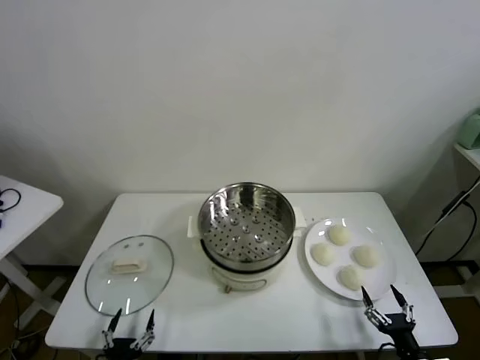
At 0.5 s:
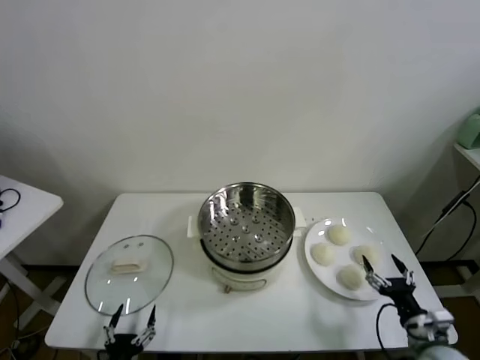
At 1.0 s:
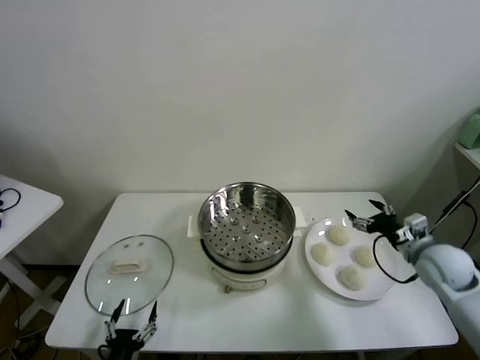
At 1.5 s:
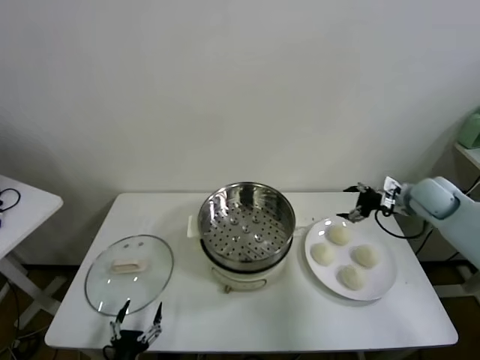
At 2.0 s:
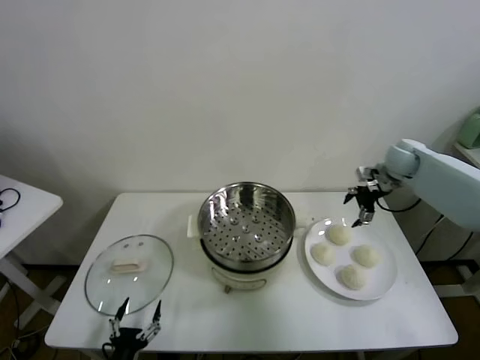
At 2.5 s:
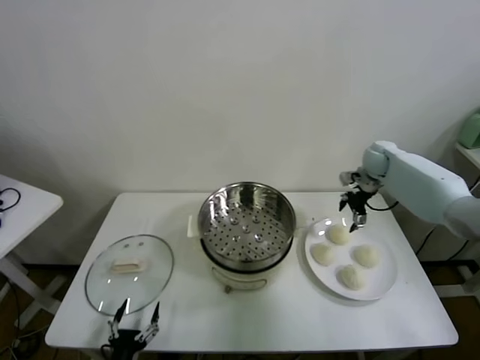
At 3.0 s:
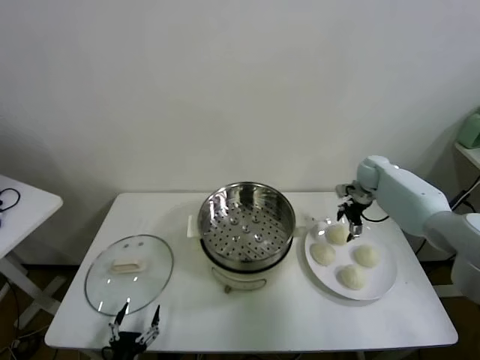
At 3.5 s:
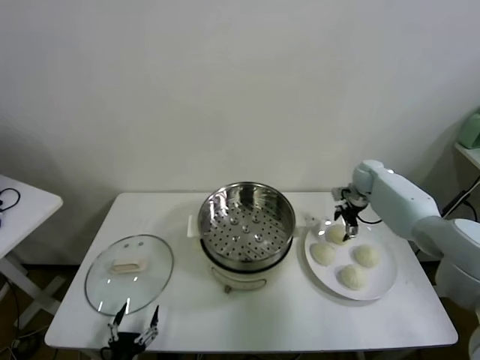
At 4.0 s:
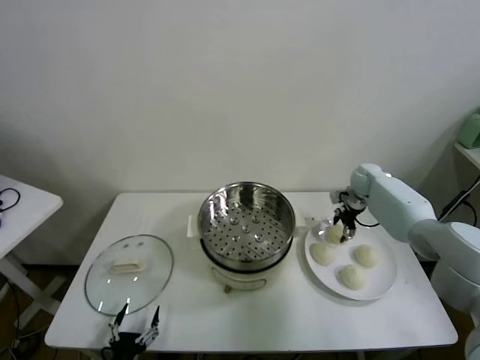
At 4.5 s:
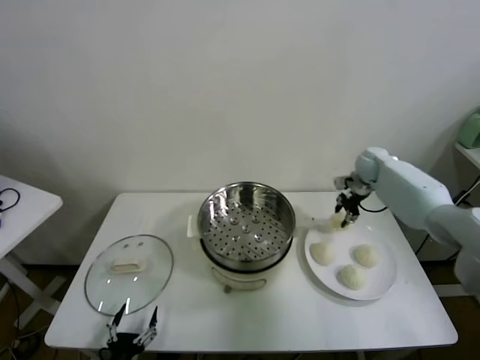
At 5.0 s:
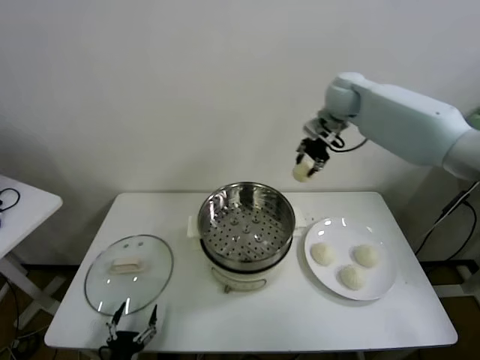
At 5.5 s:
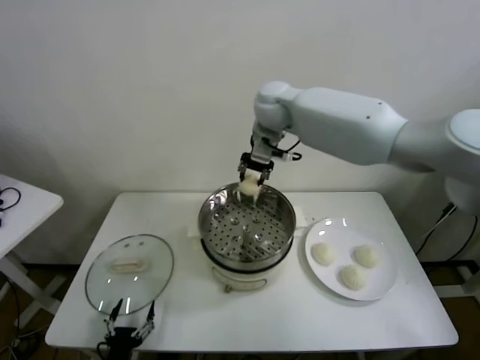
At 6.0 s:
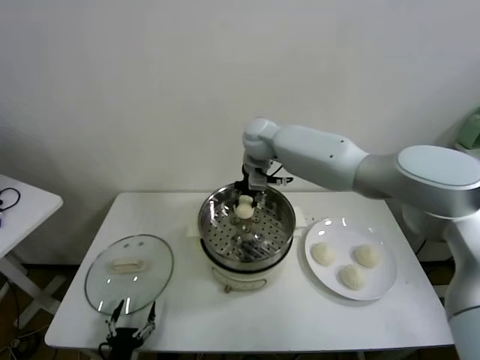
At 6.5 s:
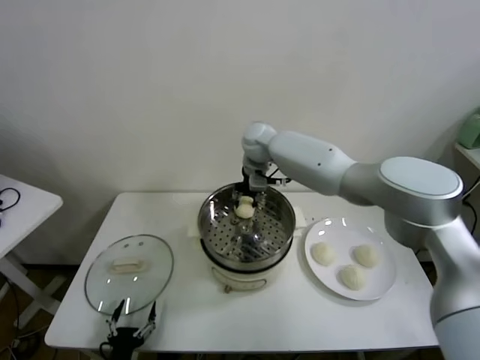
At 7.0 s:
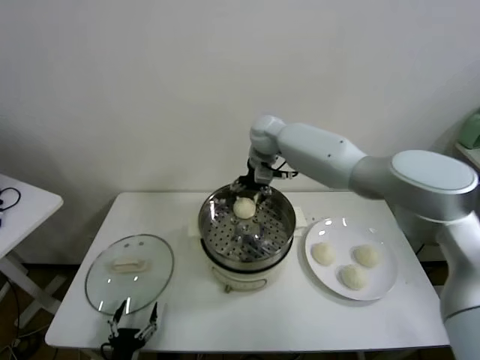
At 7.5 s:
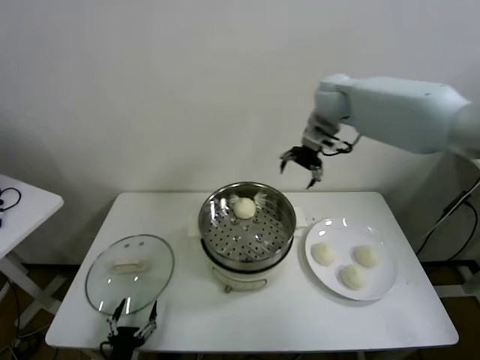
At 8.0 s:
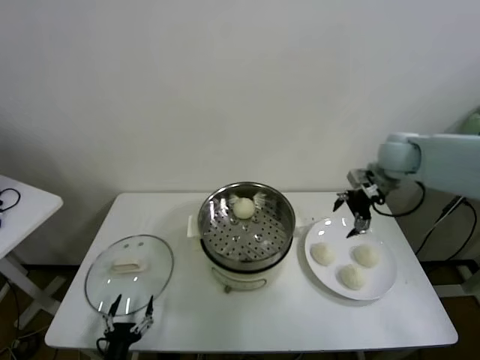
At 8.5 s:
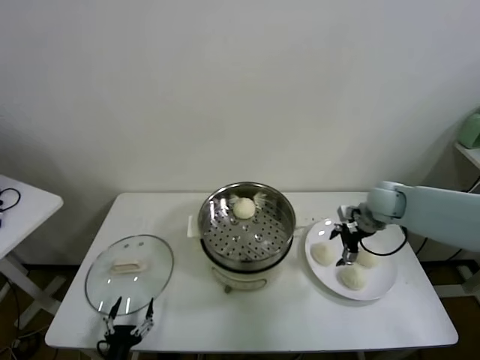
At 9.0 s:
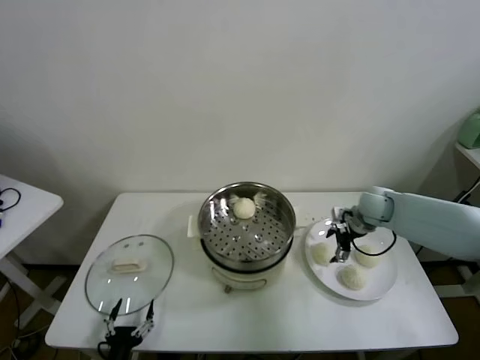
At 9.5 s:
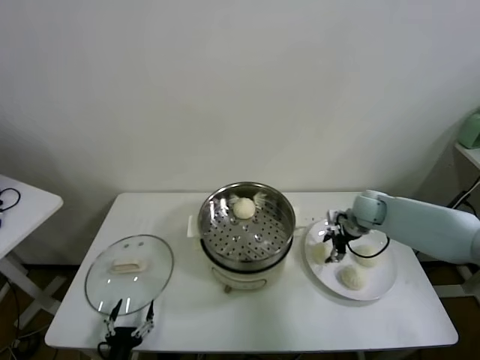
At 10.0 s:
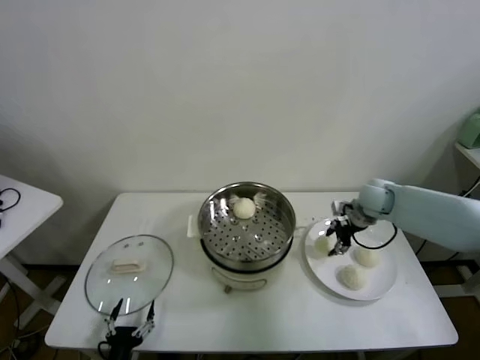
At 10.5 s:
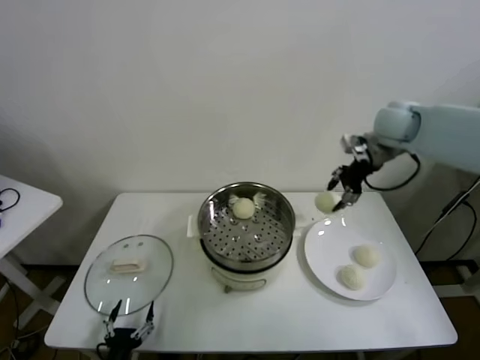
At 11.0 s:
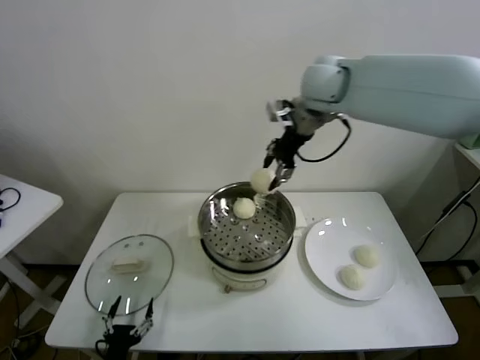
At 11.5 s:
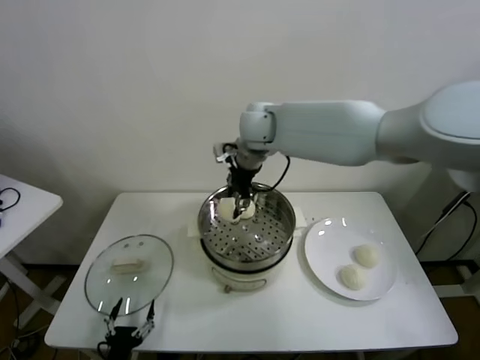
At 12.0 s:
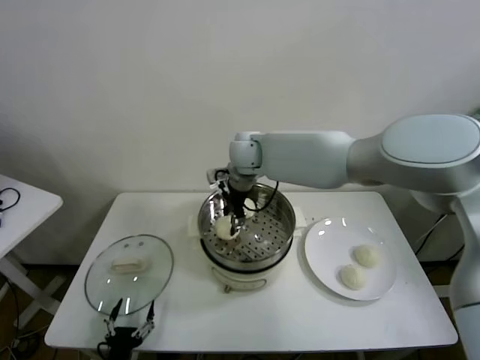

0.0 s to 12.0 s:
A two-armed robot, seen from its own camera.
Task of the whole recording: take steamed baozi put them in steamer.
Step, 0.0 to 4.0 s: Grasp the baozi in the plate with right gripper.
Step, 4.5 to 6.5 s: Place the baozi on the steamer with right gripper.
Step, 7.0 to 9.5 s: Grasp the baozi in the plate with right gripper.
2.0 to 4.0 s: The right gripper is displaced downward by about 10 cm, and closes up.
4.0 to 6.0 s: The right gripper shifts some 35 cm to the left and upward, and closes up.
6.0 to 8.0 s: The right gripper goes approximately 30 cm to the right, and opens up.
8.0 to 10.0 s: The right gripper travels downward by approximately 10 cm, and closes.
10.0 to 12.0 s: The right gripper shifts roughly 35 cm to the left.

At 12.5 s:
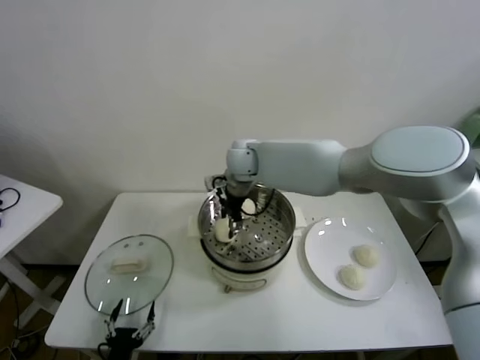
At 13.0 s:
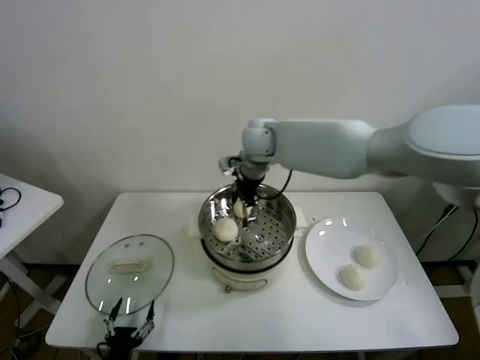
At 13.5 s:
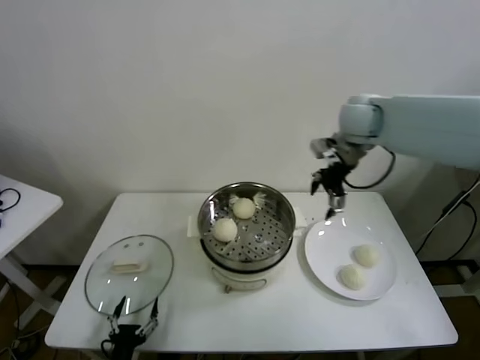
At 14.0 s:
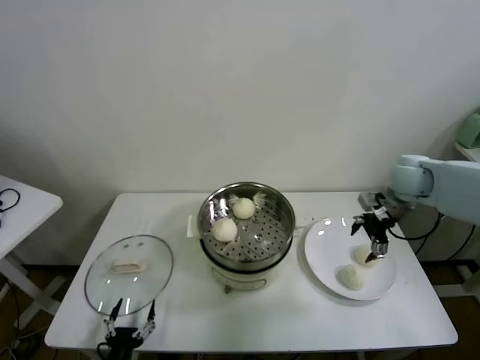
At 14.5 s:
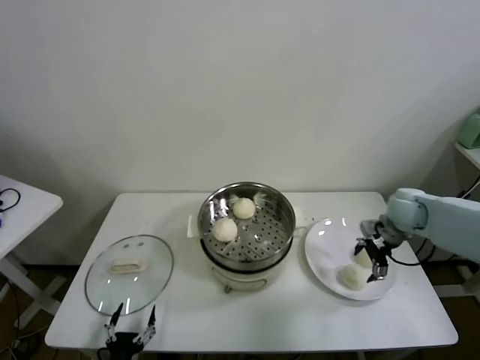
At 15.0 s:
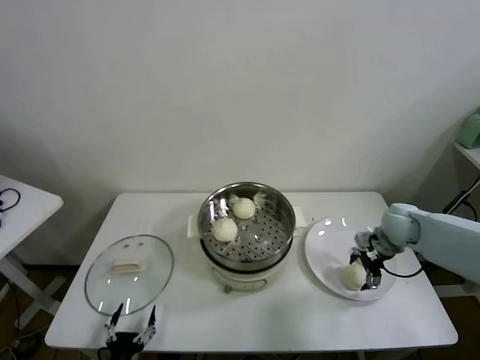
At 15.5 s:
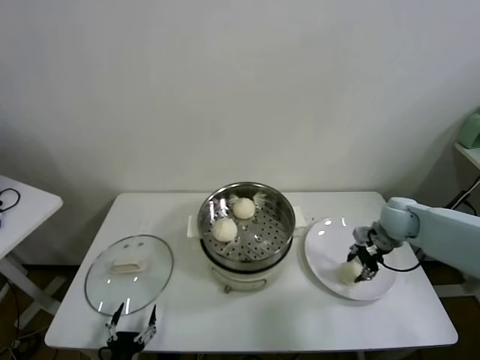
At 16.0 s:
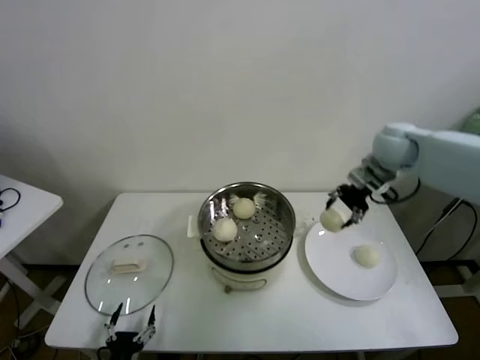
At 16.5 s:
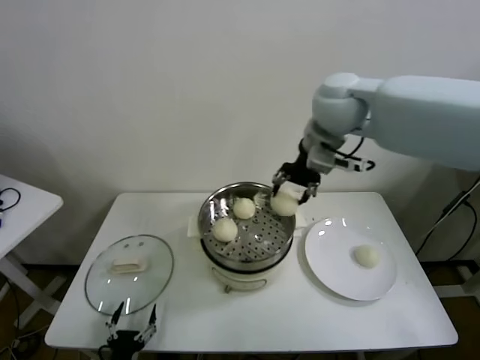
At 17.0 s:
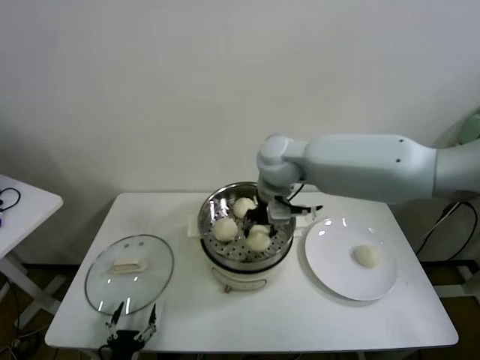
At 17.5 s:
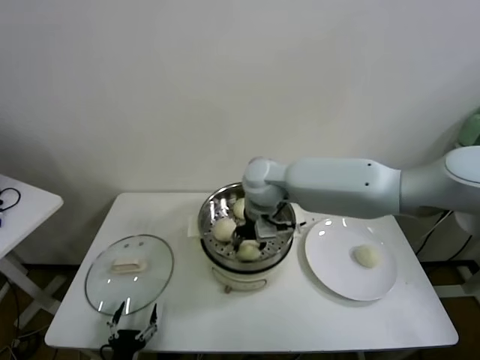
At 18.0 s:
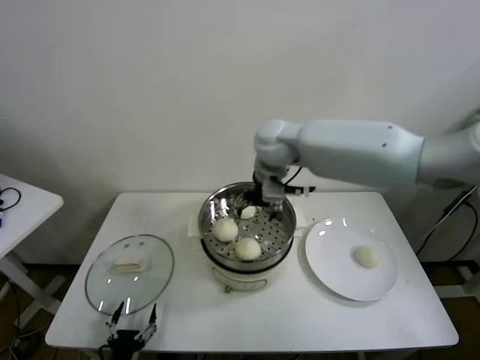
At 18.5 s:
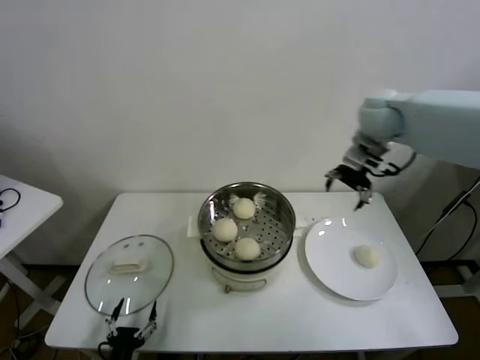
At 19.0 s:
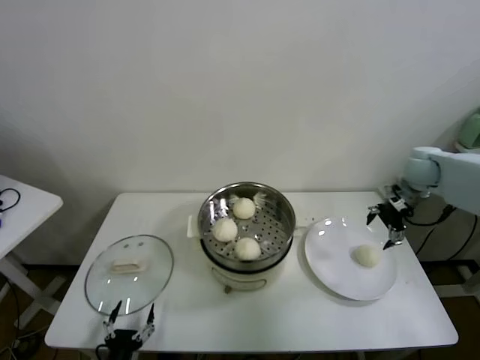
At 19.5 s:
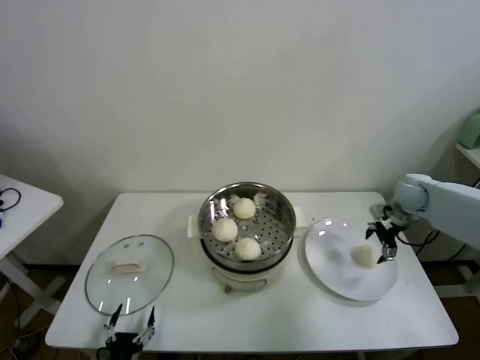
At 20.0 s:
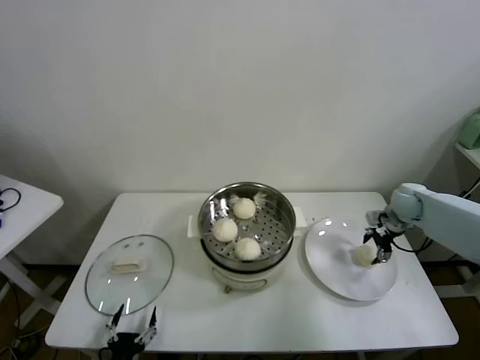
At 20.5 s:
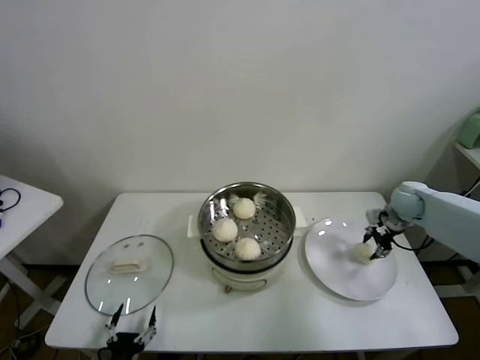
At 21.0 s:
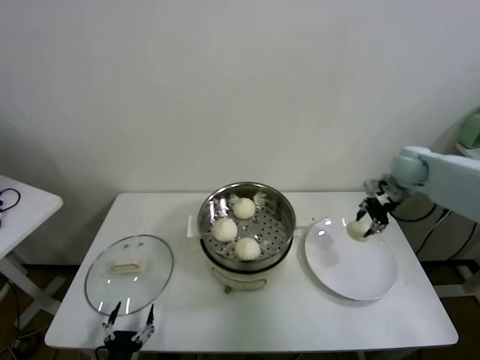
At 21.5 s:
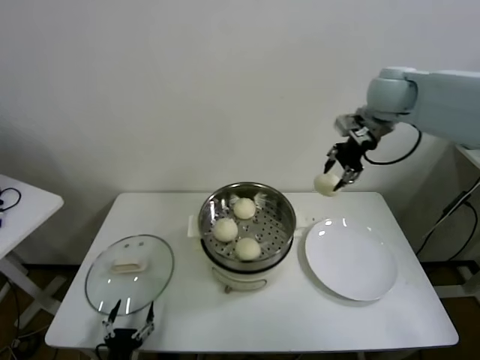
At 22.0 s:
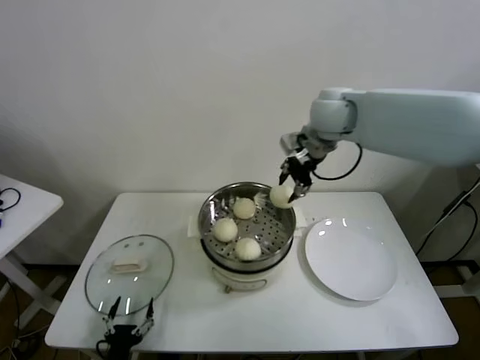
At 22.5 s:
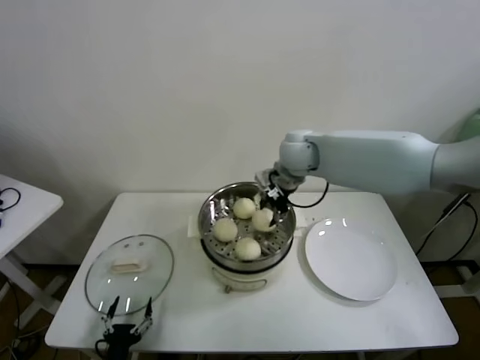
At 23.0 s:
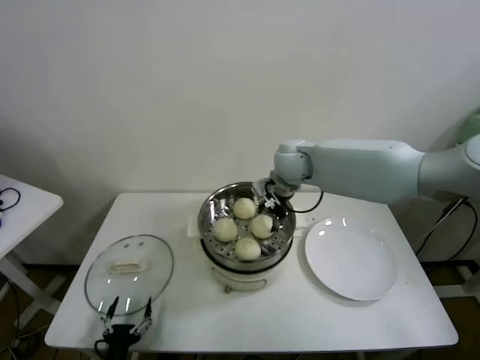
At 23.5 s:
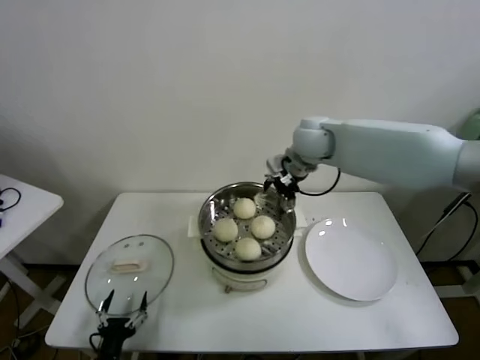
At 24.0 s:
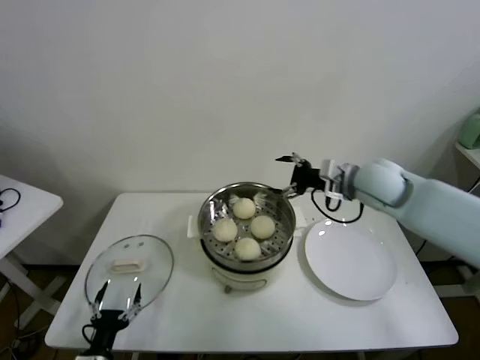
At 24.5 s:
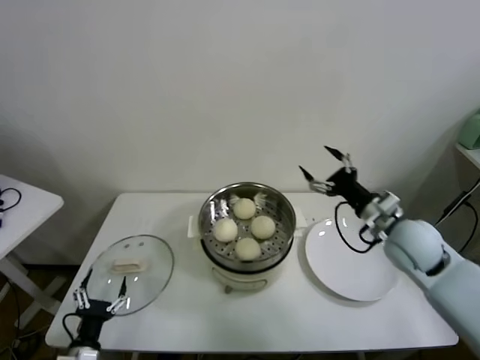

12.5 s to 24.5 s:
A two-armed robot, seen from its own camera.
Task of the whole recording: take steamed baozi put them in steamer.
Step, 13.0 to 15.0 s: Grasp the baozi in the plate with right gripper.
Step, 15.5 to 17.5 s: Place the baozi on the steamer with right gripper.
Step, 18.0 to 20.0 s: Grasp the baozi in the plate with right gripper.
Step, 21.0 to 23.0 s: Place the baozi on the steamer with right gripper.
12.5 to 14.5 s: The right gripper travels to the right by roughly 40 cm.
14.5 to 16.5 s: The right gripper moves upward and to the left, approximately 35 cm, and closes its fingers.
16.5 to 18.5 s: The right gripper travels to the right by roughly 15 cm, and opens up.
18.5 to 20.5 s: The right gripper goes about 25 cm downward and to the right, and closes.
20.5 to 22.5 s: The right gripper travels to the left and upward by some 35 cm.
22.5 to 24.5 s: The right gripper travels to the right, backward and downward by about 30 cm, and opens its fingers. Meanwhile the left gripper travels to the left by approximately 5 cm.

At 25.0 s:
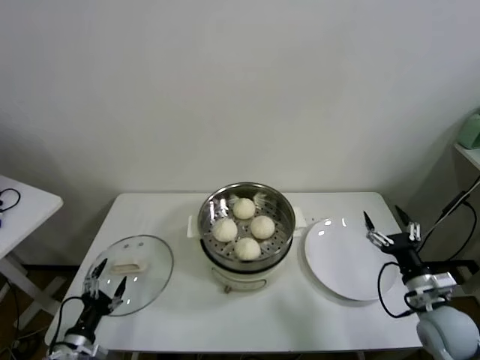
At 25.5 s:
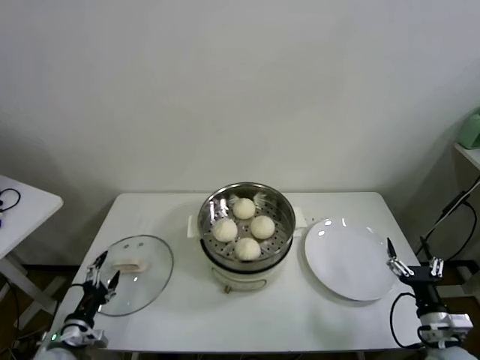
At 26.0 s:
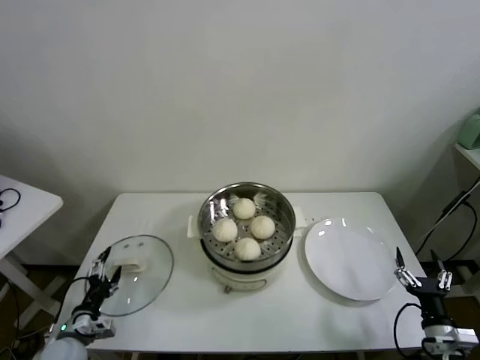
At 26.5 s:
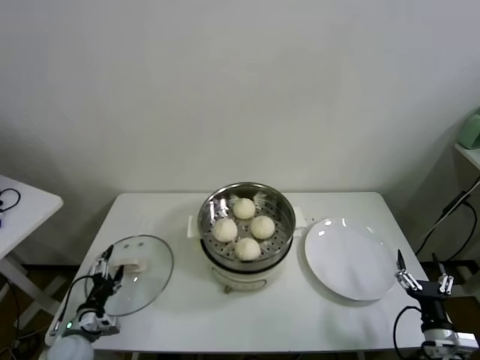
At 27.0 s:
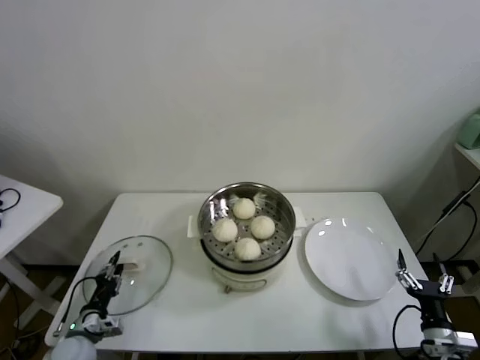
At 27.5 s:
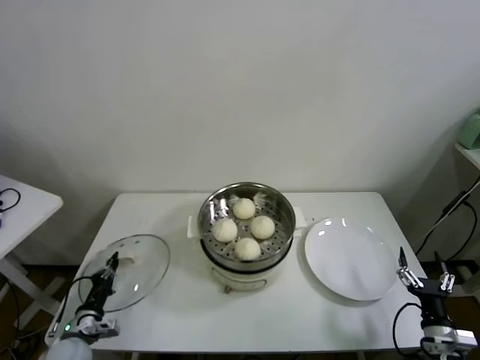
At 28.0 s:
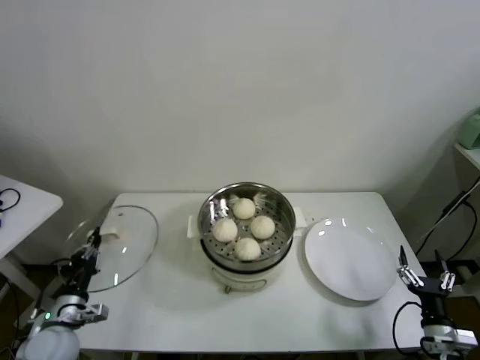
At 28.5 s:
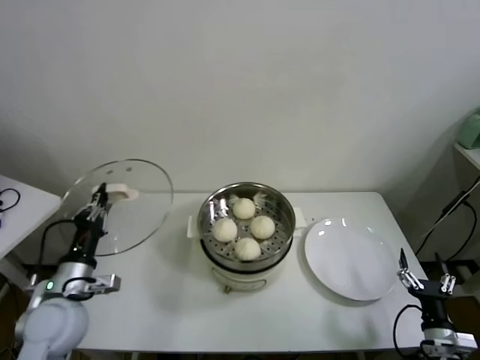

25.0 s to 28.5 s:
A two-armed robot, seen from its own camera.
Task of the whole recording: take steamed baozi put them in steamer.
Step, 25.0 to 27.0 s: Grasp the pot lid with left gripper.
25.0 to 27.0 s: The left gripper goes about 5 cm forward, and closes; the right gripper is displaced downward and backward by some 10 cm.
27.0 to 28.5 s: The left gripper travels upward by about 20 cm, and closes up.
